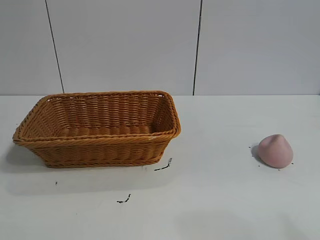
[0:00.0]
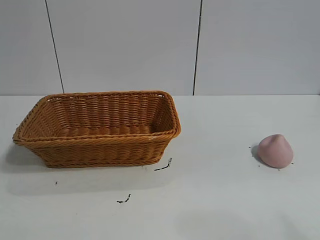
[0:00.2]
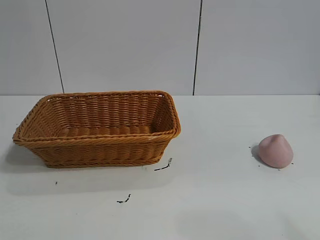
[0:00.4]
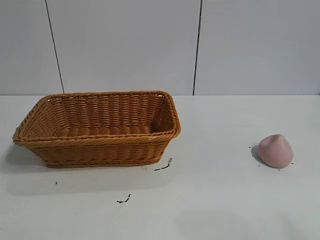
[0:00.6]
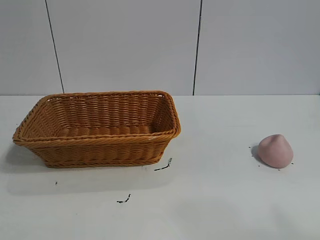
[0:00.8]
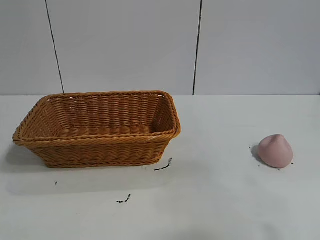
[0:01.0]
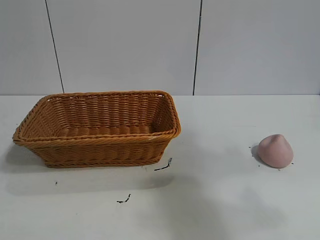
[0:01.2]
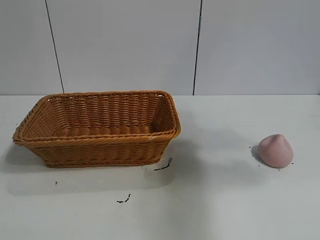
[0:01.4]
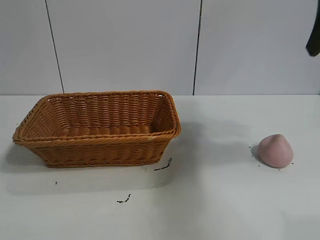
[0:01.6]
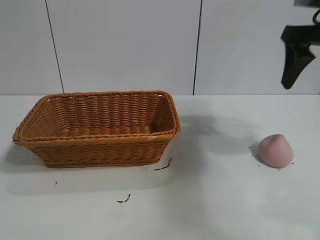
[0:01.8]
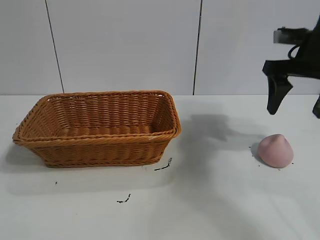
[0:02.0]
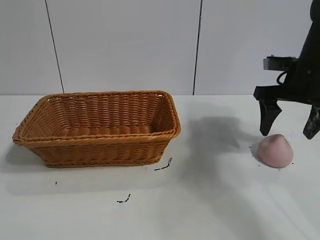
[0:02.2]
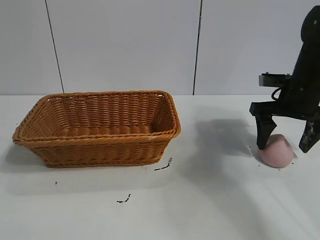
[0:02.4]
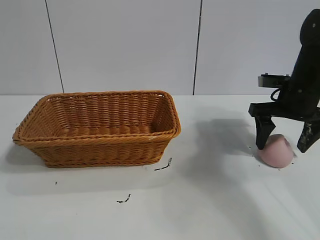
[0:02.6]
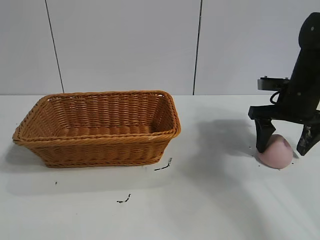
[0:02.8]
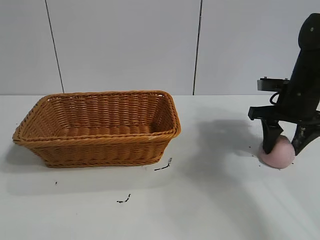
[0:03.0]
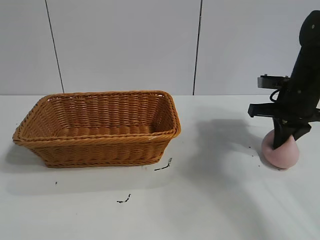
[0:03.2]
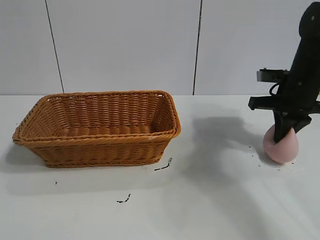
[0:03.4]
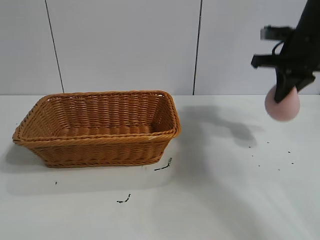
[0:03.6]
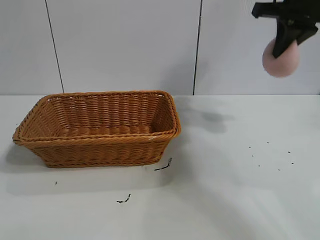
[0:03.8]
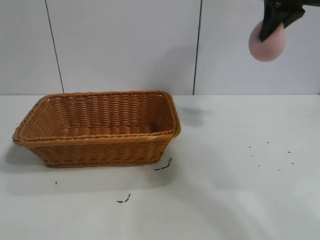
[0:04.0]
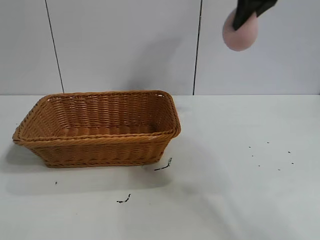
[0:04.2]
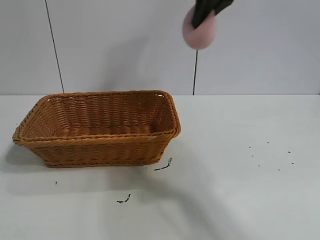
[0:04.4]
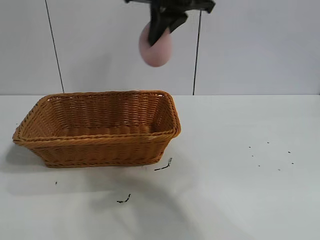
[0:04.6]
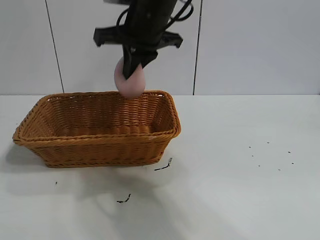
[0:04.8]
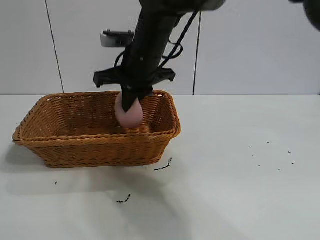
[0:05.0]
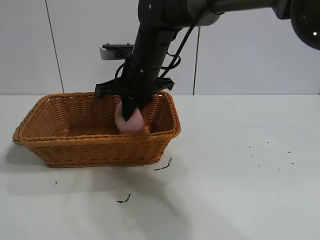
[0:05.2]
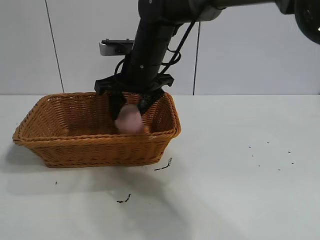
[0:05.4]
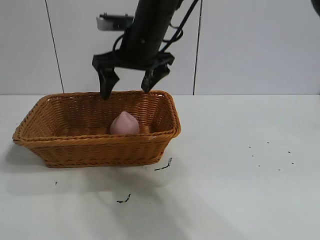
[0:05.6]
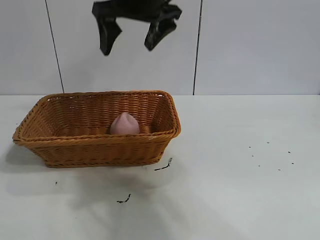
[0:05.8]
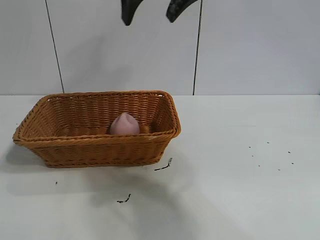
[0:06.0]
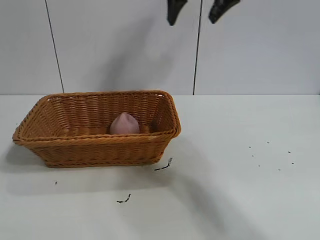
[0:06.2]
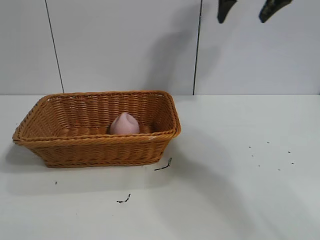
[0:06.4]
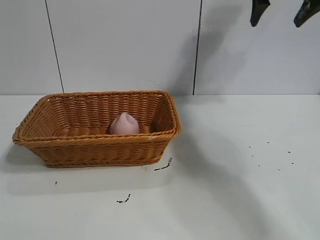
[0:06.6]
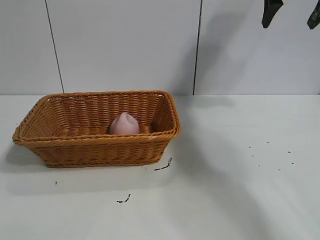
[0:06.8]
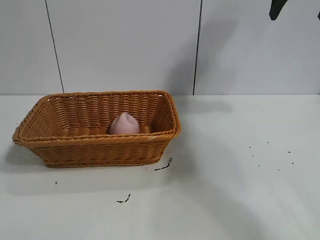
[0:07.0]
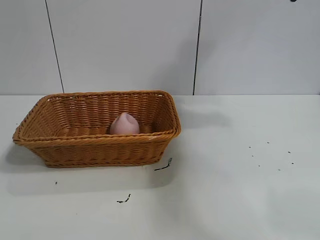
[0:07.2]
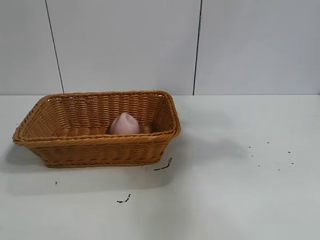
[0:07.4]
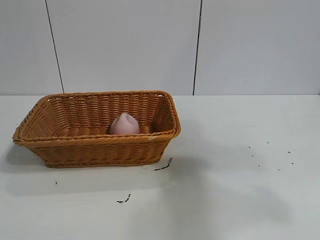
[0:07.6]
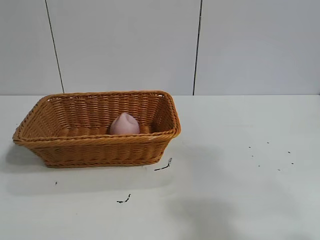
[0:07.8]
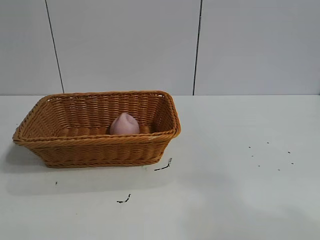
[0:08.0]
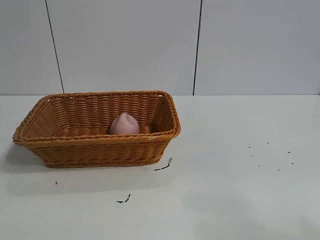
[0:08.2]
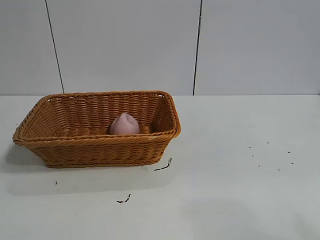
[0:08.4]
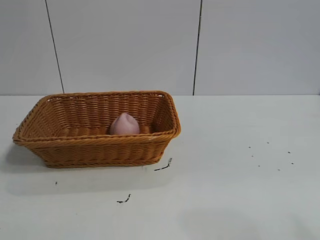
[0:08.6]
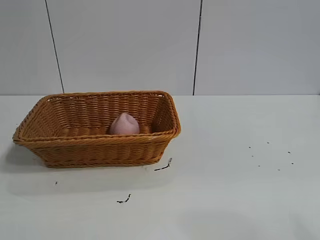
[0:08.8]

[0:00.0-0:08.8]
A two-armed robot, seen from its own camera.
Task of the whole recording: pick up the peach and put it into the basket.
Step, 0:00.8 to 0:03.4: Grasp the peach with right gripper.
Step, 0:03.6 to 0:05.6: Place the peach in the basket with right gripper.

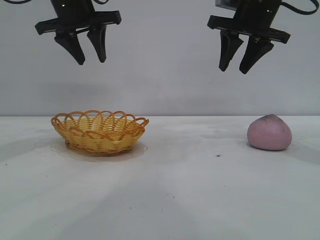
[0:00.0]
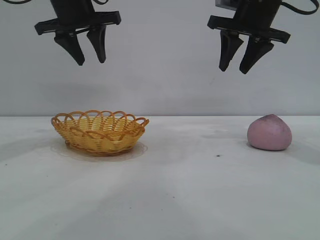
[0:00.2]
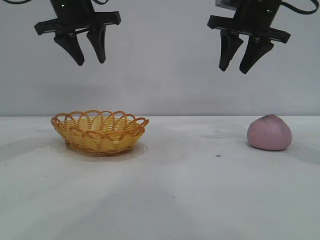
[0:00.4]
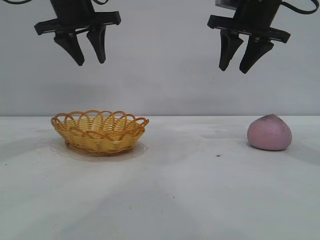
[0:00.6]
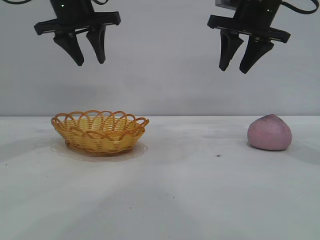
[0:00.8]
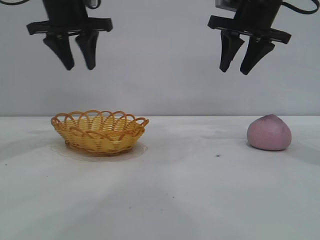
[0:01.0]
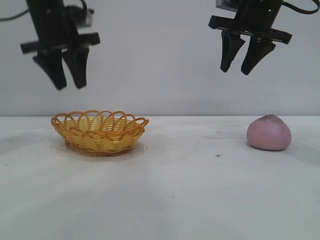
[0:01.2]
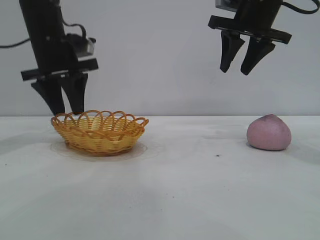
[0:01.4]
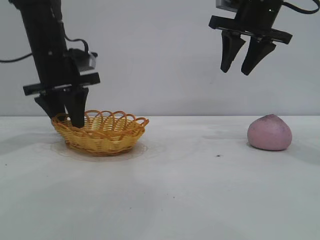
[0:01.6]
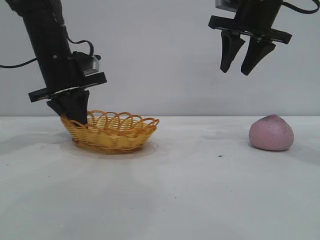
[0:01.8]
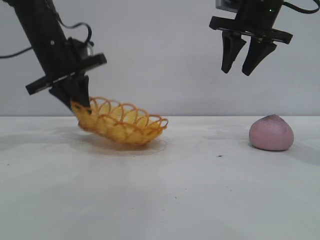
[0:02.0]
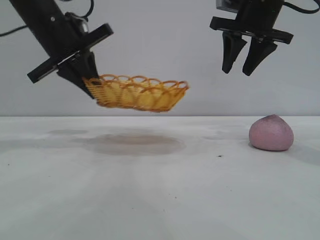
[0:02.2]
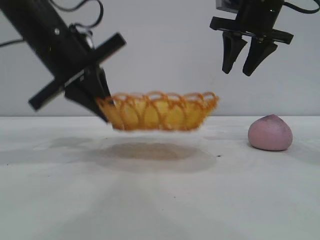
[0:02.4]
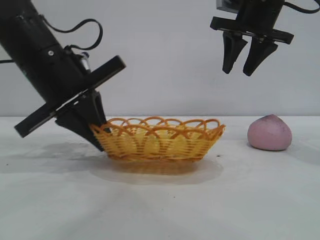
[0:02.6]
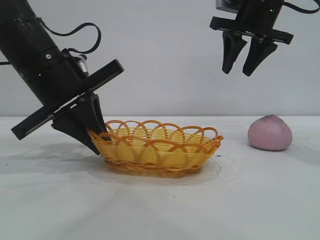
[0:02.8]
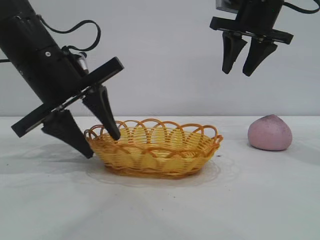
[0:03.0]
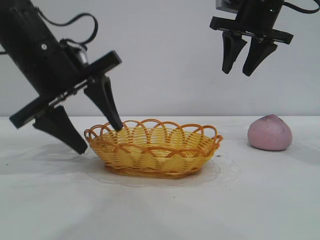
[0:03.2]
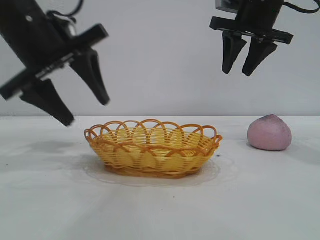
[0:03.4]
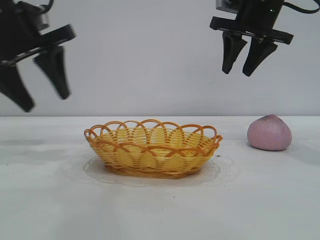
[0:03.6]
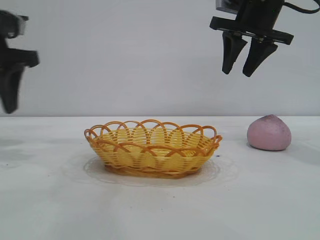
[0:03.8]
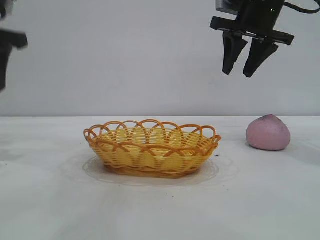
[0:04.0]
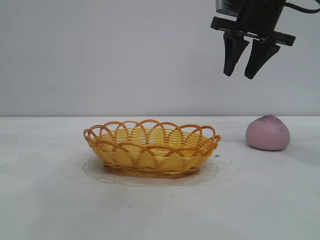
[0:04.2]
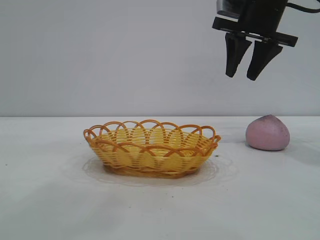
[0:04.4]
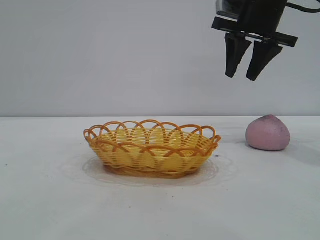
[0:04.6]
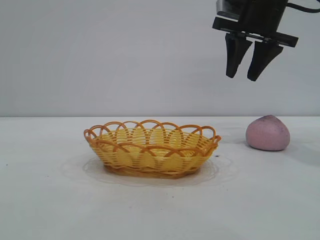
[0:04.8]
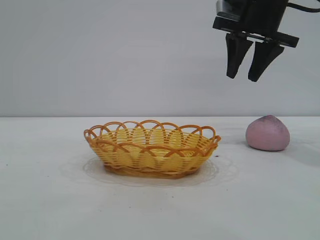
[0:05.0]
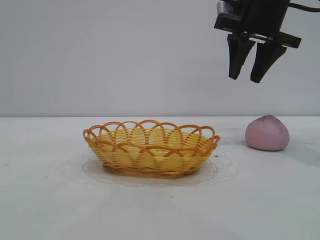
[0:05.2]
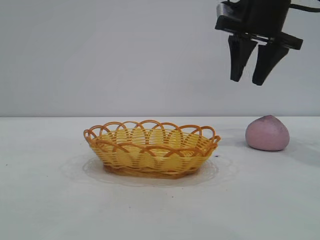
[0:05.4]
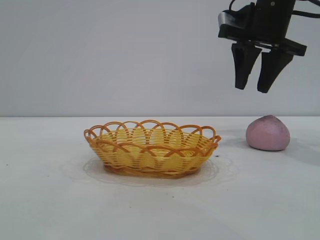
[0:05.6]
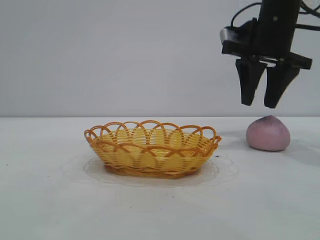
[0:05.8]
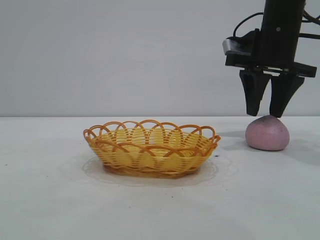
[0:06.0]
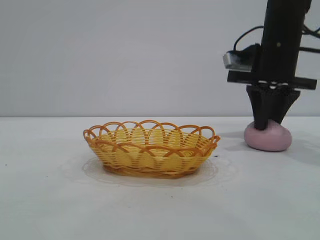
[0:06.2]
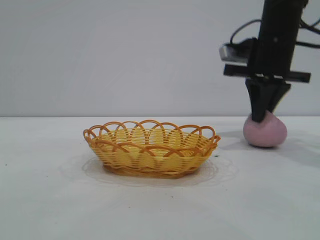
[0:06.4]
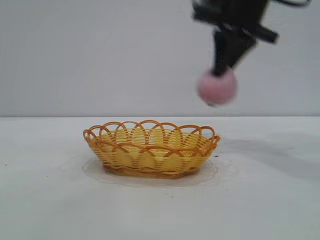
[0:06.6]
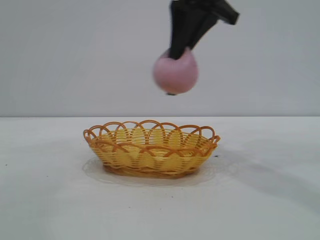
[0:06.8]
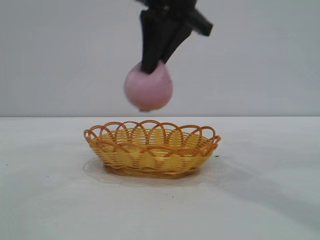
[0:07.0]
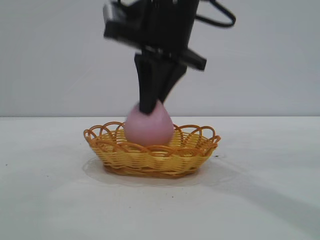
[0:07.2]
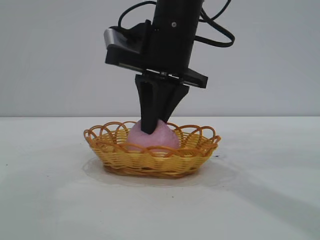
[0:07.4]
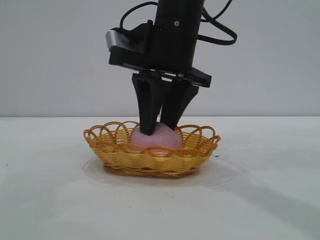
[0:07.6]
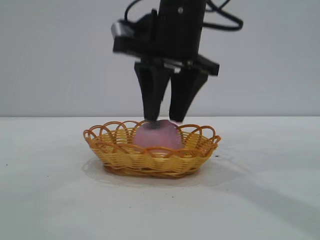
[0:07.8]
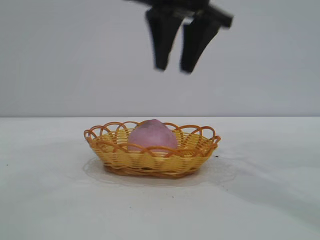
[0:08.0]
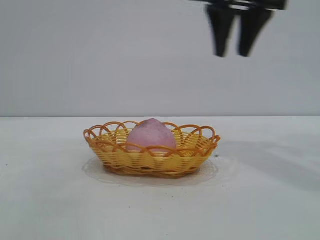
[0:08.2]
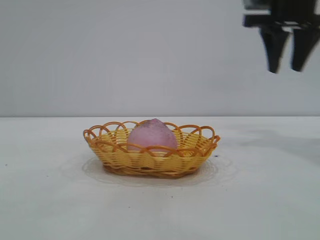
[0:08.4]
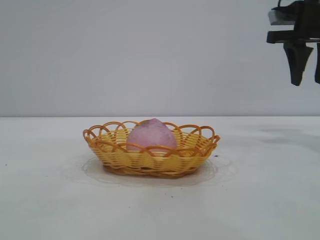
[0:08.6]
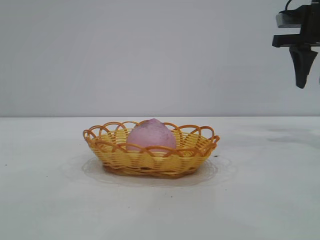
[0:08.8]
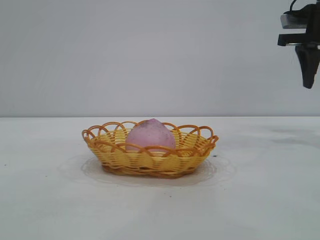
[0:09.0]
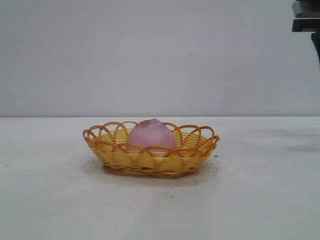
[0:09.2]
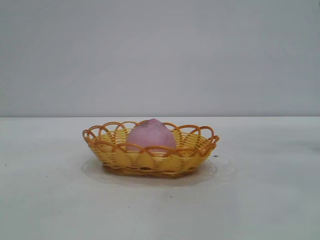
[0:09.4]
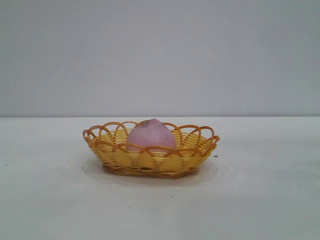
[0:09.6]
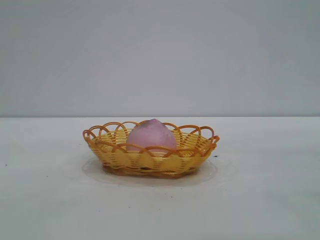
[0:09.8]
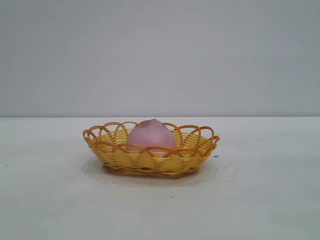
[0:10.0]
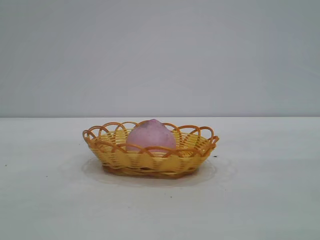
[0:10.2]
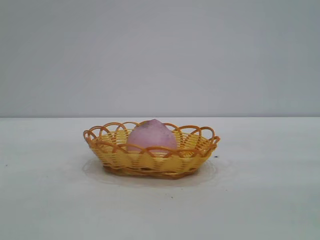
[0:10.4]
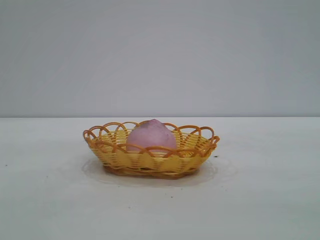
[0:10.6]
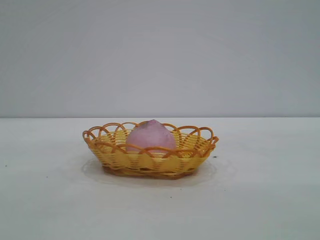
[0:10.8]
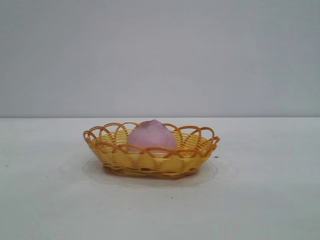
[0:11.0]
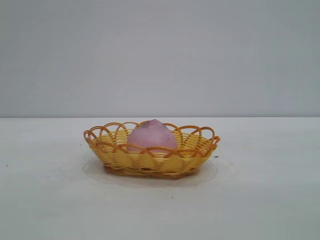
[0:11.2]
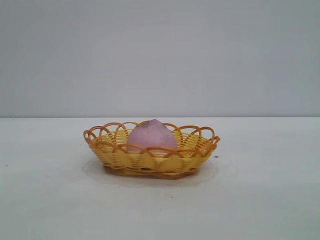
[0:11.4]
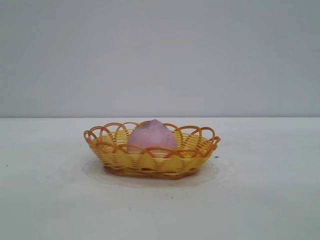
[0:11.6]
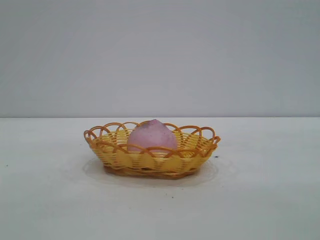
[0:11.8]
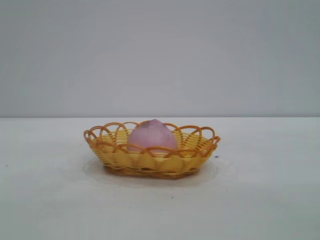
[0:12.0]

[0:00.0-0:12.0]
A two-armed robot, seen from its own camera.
Task of the whole recording: pick up the peach and put it into the basket.
Step, 0:00.0 to 0:03.4: Move the basket to the center of view.
Step, 0:03.6 to 0:06.4: Pick up the peach.
Step, 0:06.8 to 0:07.8: place the peach into the basket.
